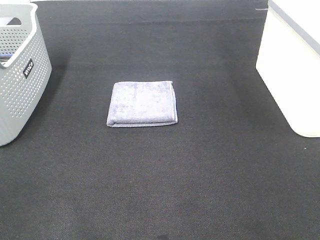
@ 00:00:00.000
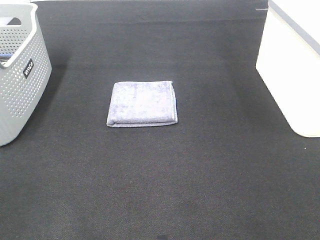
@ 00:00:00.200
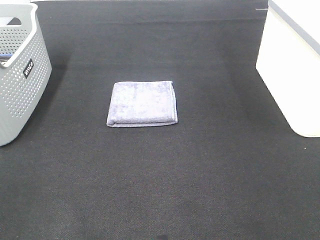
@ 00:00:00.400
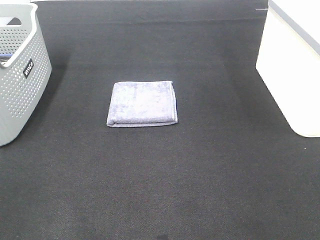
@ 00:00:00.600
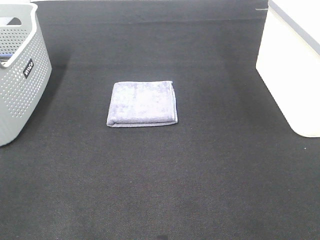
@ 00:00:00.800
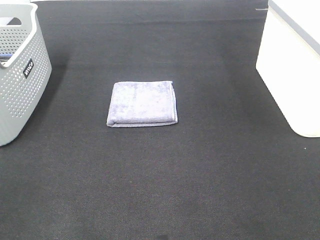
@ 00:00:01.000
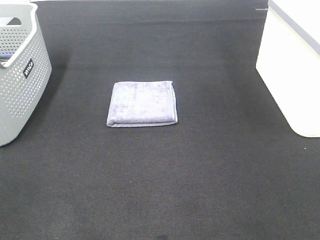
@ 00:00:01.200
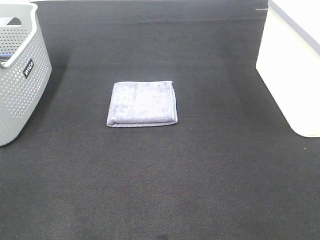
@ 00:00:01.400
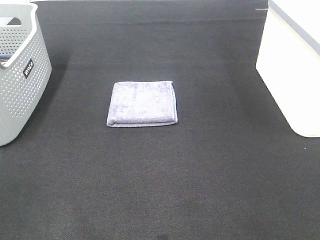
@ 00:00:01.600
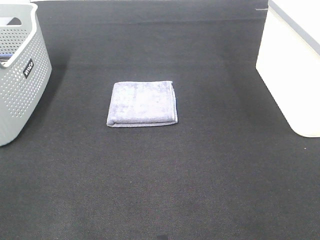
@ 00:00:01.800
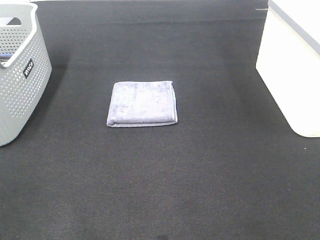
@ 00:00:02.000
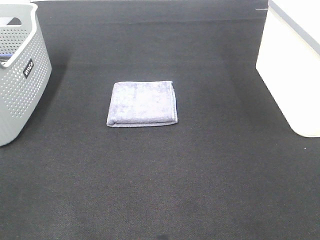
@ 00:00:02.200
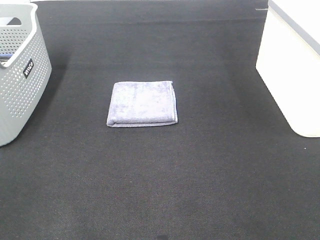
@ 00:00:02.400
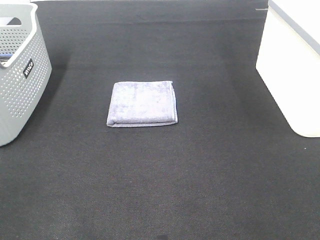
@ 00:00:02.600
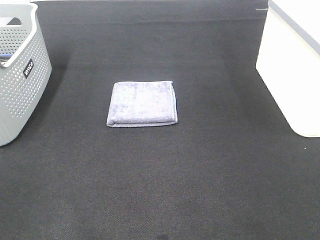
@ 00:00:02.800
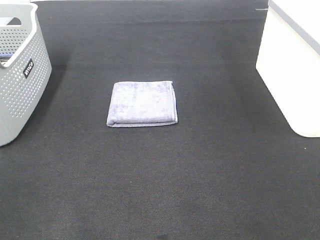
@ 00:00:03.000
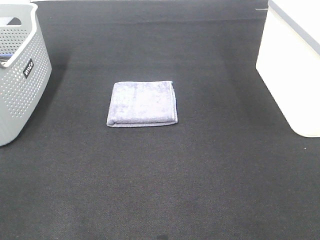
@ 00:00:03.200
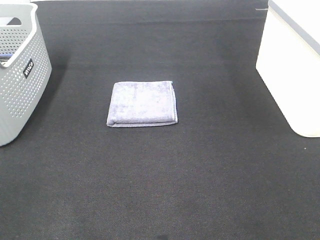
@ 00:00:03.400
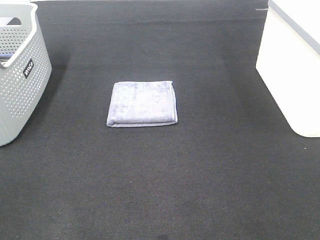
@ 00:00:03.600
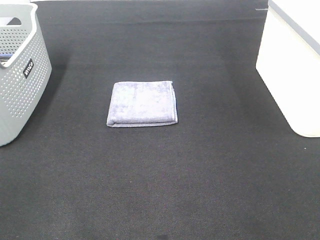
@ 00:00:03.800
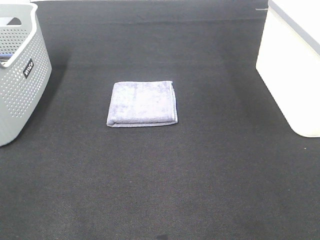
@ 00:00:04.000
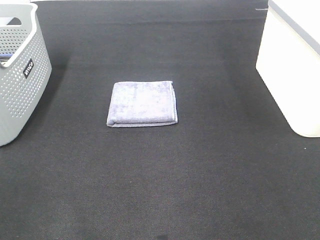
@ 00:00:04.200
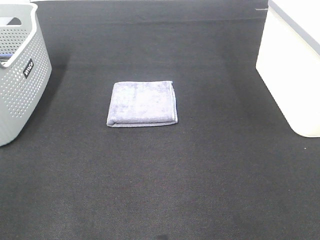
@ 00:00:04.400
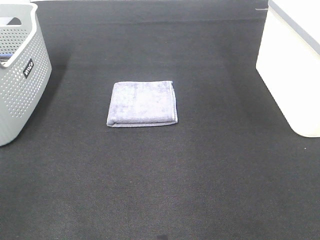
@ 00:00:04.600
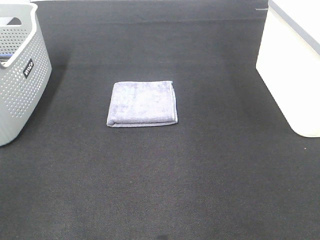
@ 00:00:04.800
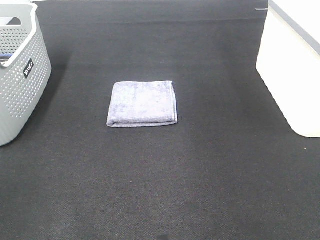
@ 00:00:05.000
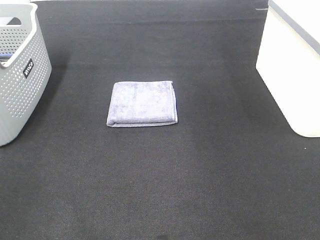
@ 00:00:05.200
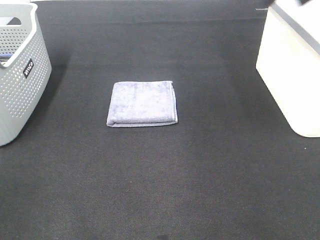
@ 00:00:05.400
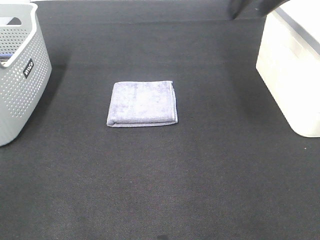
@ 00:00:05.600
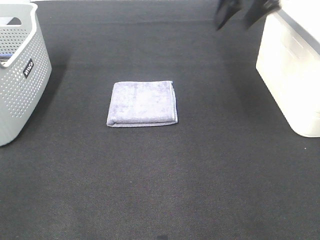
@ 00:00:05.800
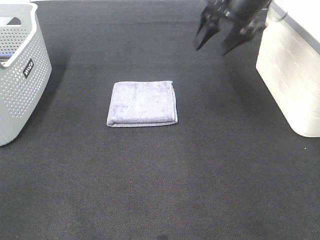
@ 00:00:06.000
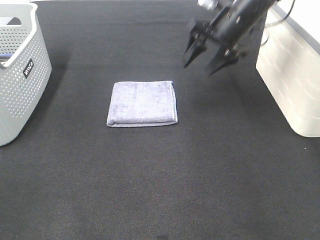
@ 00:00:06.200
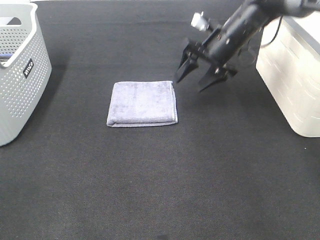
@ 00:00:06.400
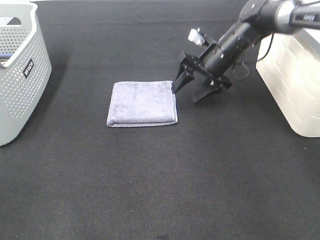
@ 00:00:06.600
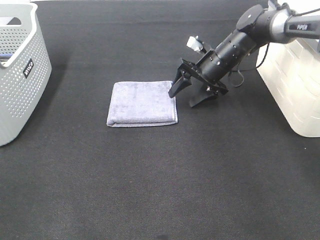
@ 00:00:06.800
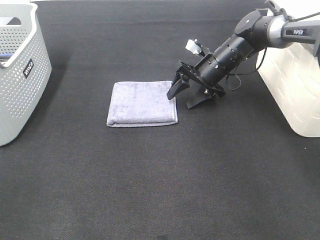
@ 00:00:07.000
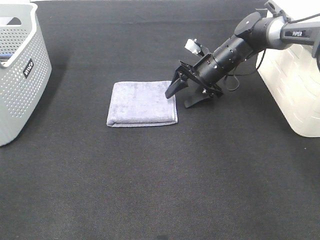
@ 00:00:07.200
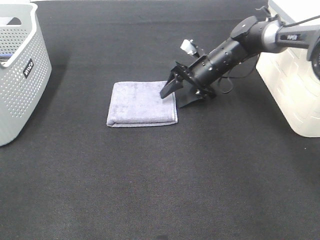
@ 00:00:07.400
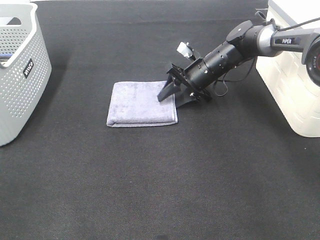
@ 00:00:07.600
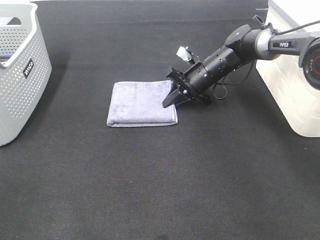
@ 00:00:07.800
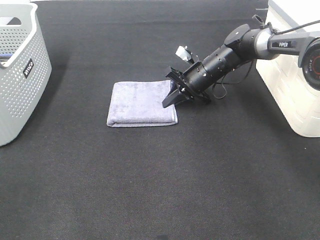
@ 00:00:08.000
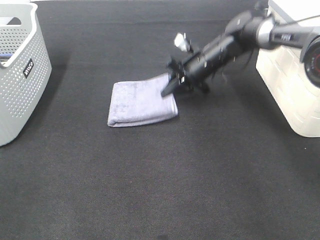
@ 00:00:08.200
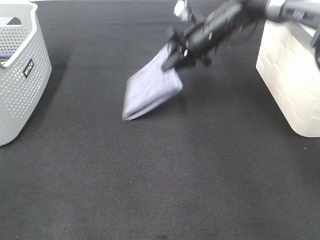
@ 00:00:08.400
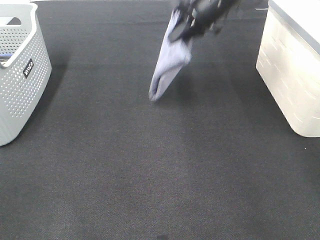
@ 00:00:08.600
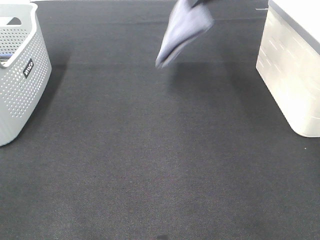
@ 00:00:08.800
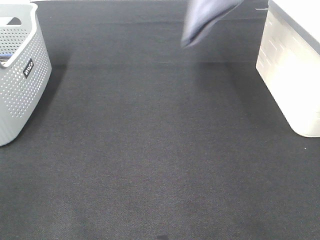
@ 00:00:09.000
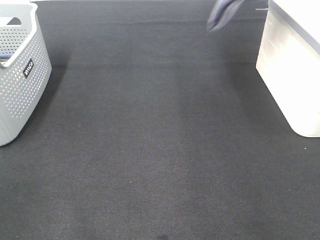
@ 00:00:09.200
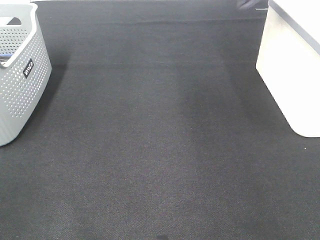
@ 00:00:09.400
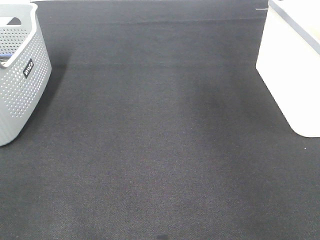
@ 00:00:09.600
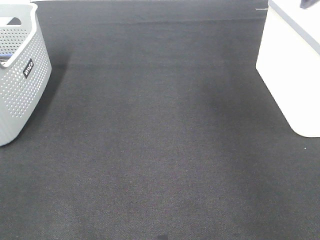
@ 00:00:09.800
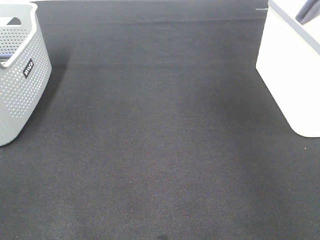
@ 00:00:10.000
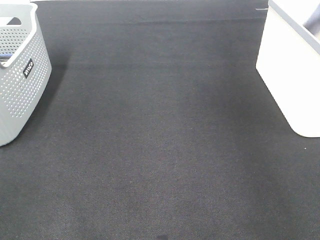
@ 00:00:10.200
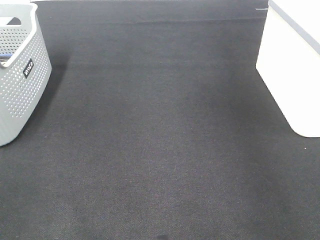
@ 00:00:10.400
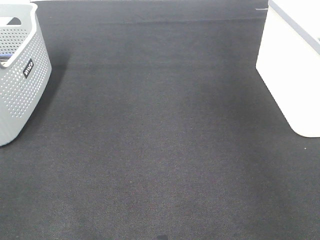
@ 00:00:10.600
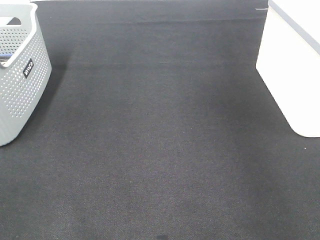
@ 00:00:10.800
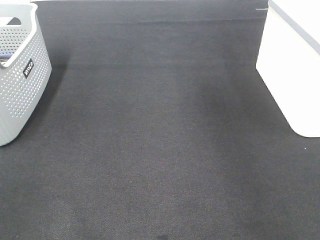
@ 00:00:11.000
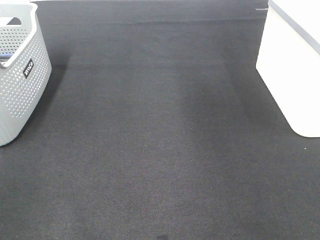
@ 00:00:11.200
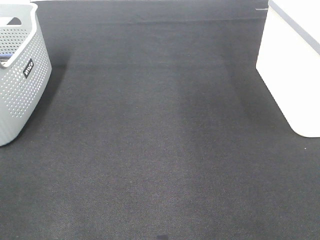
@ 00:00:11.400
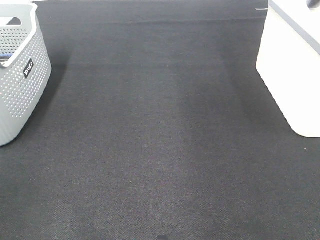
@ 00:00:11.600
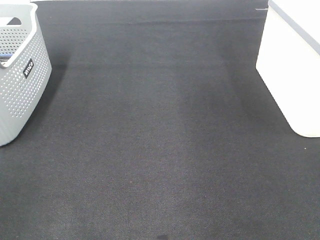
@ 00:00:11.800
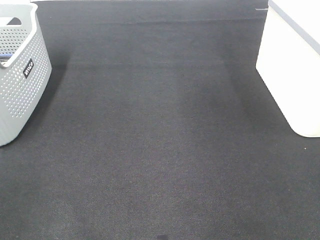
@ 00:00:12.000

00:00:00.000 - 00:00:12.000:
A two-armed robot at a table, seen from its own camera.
Step, 00:00:00.000 - 00:00:07.800: Right hand: grab the folded grey towel.
Step, 00:00:08.000 - 00:00:10.400: Right hand: place the grey towel in right basket.
00:00:00.000 - 00:00:03.000: Both grippers stay put.
00:00:04.400 - 00:00:06.000: The right gripper shifts approximately 40 cm forward, to the left and downward.
00:00:06.000 - 00:00:07.600: The right gripper shifts approximately 20 cm downward.
00:00:07.600 - 00:00:09.000: The right gripper shifts about 30 cm upward, and closes.
00:00:09.000 - 00:00:10.400: The right gripper goes approximately 20 cm to the right, and opens.

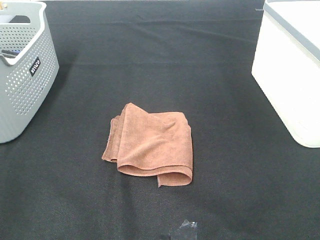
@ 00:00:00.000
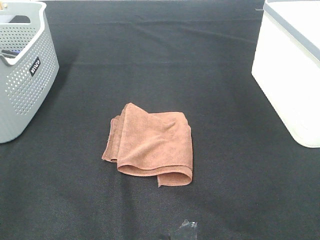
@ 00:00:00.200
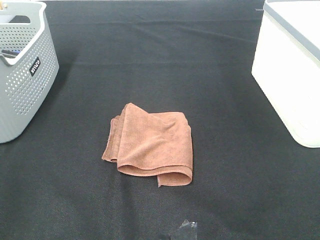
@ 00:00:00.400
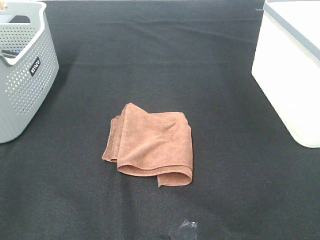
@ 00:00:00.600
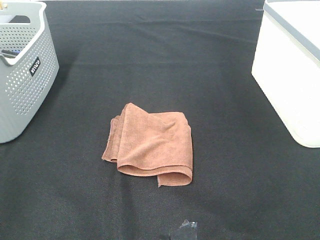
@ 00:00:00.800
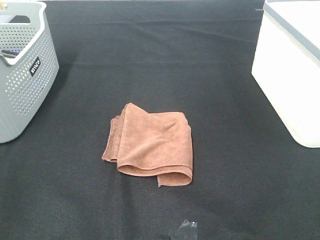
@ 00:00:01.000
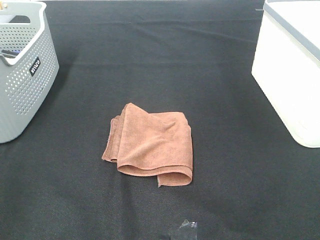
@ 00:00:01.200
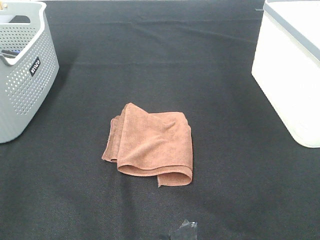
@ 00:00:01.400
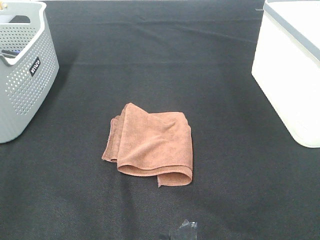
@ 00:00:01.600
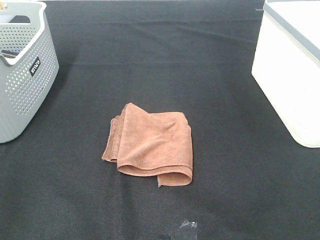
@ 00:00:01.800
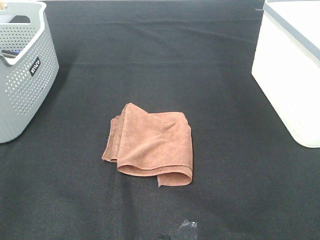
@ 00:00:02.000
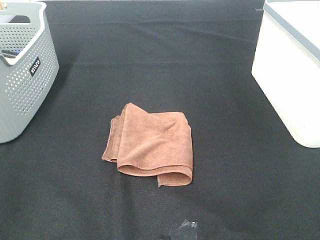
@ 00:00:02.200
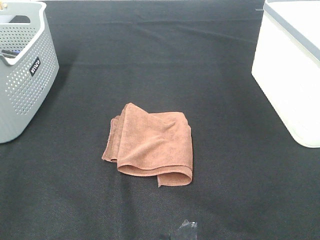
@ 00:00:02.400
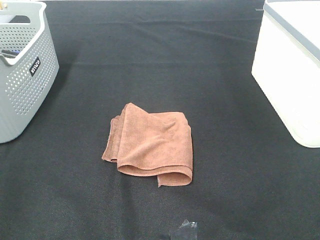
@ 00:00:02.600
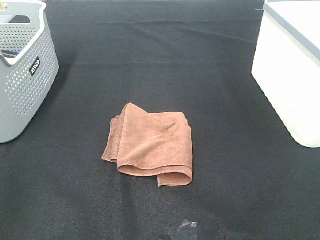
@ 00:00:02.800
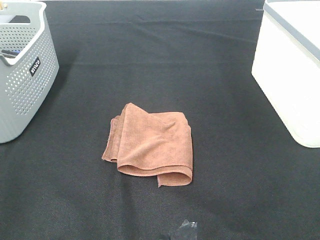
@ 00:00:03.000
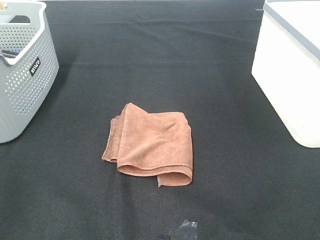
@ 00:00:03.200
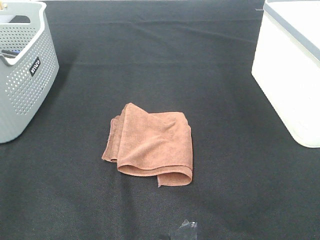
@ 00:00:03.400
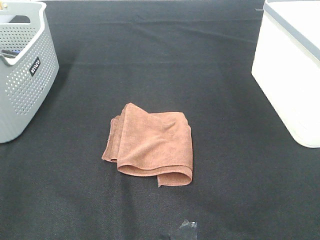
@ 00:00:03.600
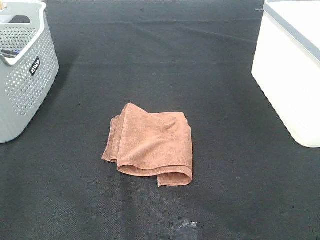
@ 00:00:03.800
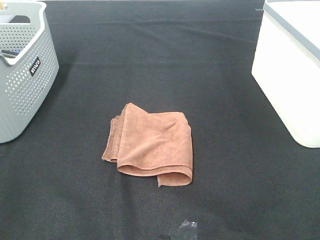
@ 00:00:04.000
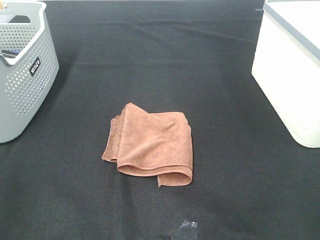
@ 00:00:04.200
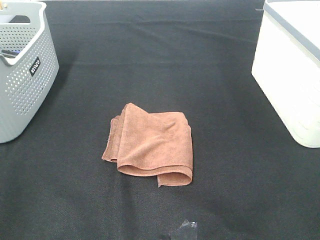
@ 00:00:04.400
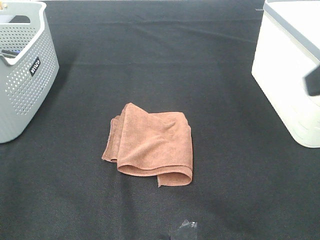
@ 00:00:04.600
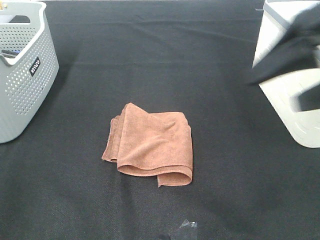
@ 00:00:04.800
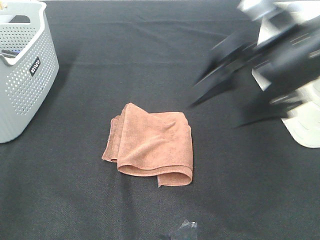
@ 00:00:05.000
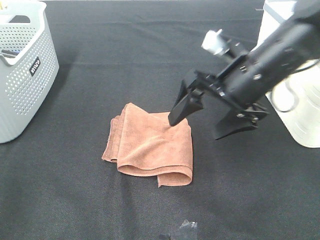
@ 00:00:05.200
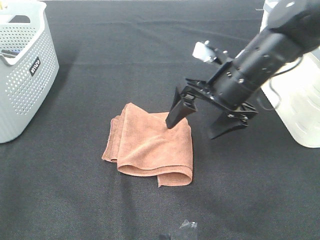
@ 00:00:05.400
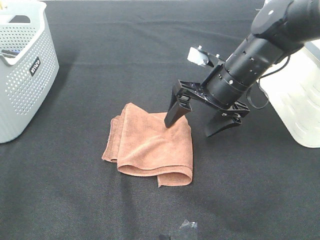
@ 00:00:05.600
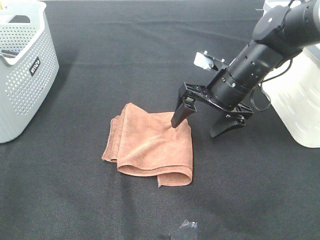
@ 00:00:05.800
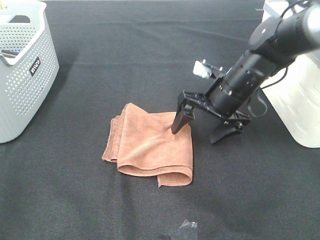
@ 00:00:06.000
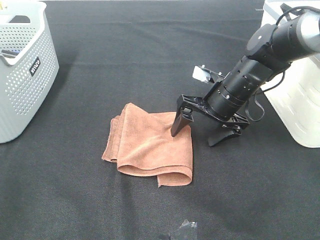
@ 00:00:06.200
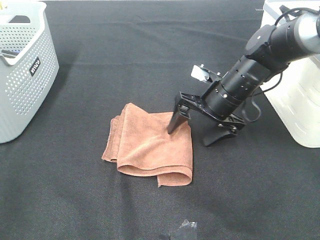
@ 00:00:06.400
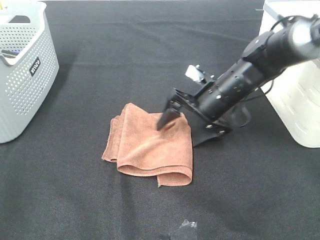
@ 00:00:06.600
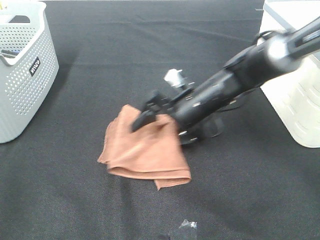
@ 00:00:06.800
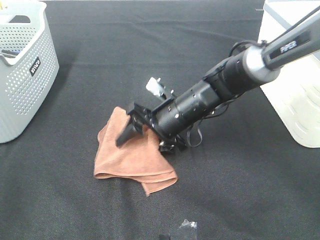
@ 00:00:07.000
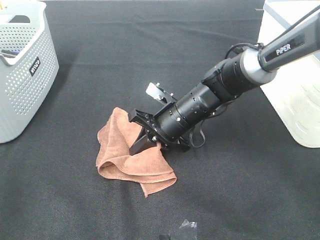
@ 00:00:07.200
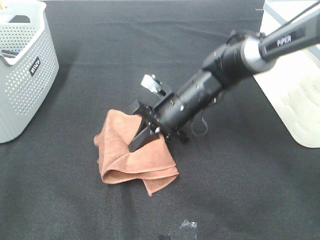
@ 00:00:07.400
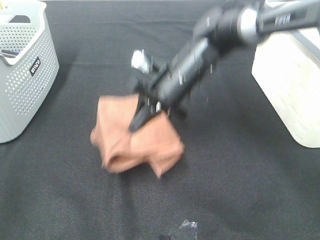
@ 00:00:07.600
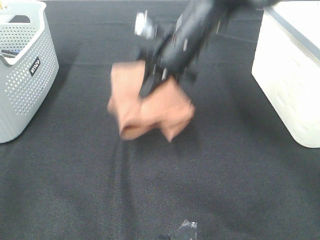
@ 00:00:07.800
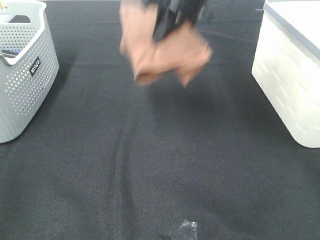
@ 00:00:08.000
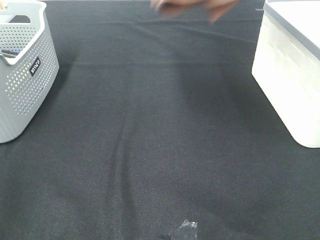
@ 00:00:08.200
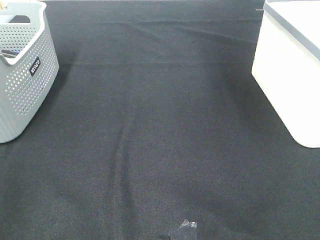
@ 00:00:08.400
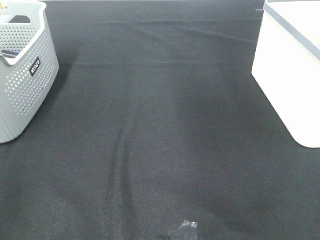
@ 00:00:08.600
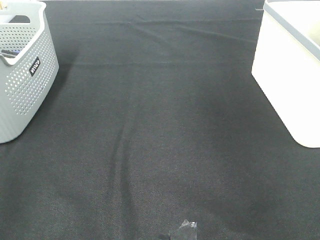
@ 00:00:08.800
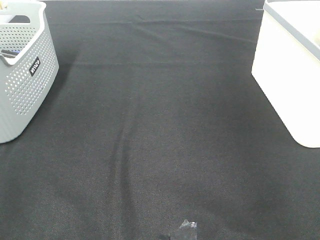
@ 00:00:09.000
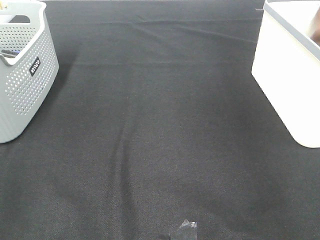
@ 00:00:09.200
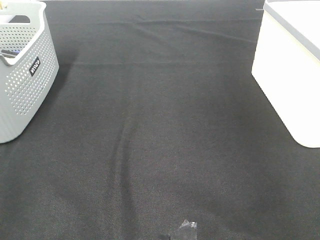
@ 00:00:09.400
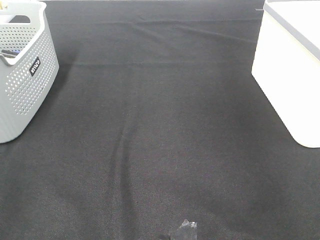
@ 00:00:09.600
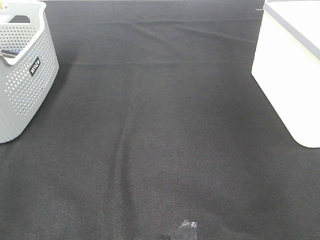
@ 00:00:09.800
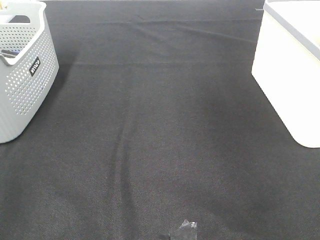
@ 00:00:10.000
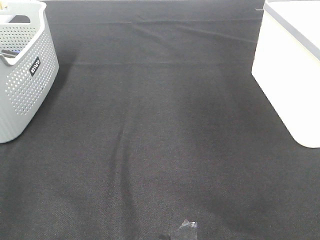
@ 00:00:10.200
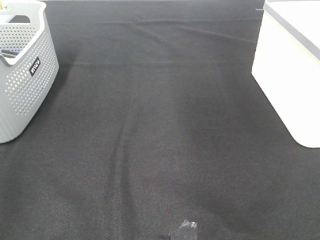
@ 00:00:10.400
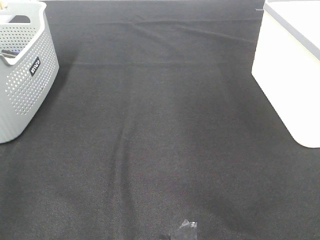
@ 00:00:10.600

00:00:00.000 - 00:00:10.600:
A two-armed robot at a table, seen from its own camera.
Step, 00:00:00.000 - 00:00:07.200: Right hand: grab the folded brown towel.
Step, 00:00:07.400 - 00:00:09.400: Right hand: place the brown towel in right basket.
00:00:00.000 - 00:00:03.000: The two grippers keep their place.
00:00:04.600 - 00:00:06.000: The right gripper goes approximately 30 cm downward, forward and to the left.
00:00:06.000 - 00:00:07.600: The right gripper moves to the left, approximately 10 cm, and closes.
00:00:07.600 - 00:00:09.000: The right gripper moves to the right and upward, about 40 cm.
